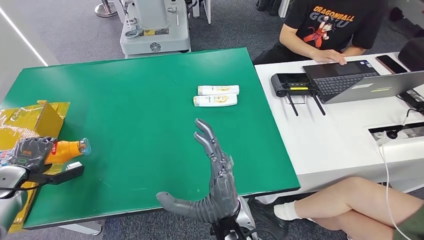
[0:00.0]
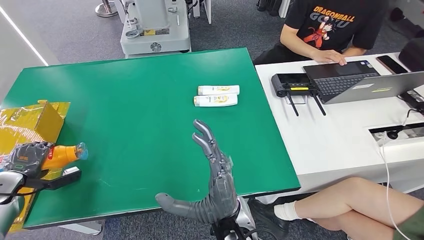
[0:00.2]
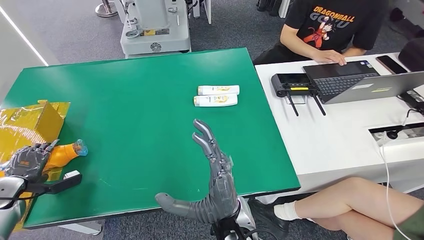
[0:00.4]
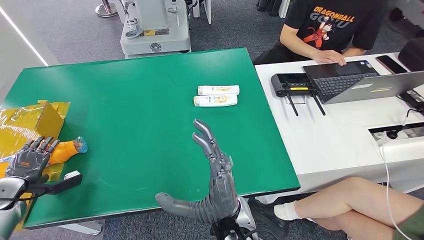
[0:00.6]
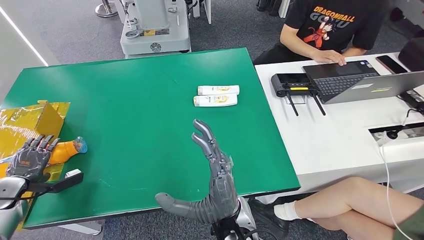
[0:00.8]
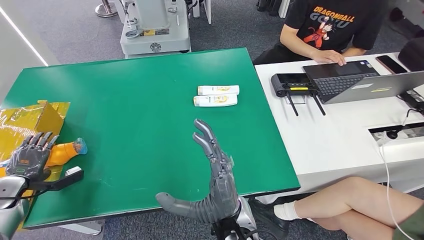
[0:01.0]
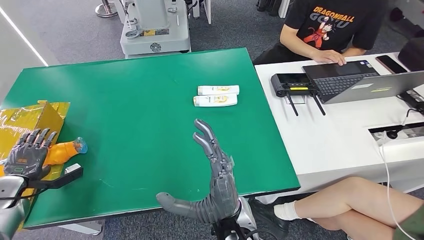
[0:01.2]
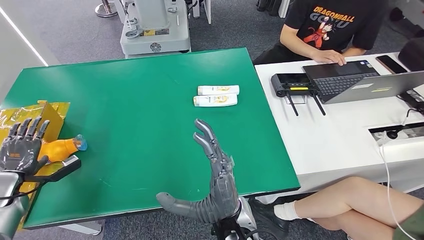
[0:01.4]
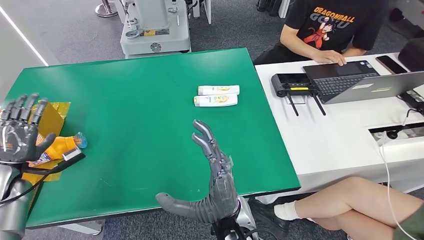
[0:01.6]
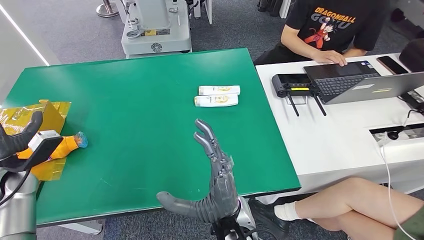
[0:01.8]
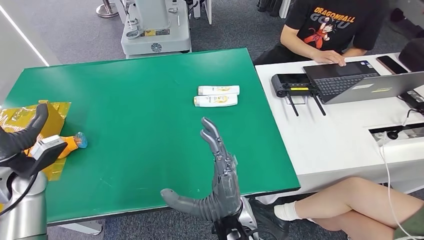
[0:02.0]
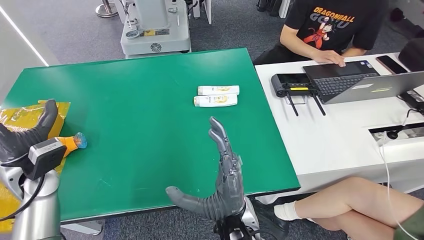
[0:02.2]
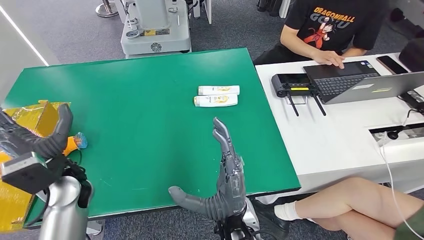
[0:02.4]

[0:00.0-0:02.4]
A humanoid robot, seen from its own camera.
Step, 0:00.0 to 0:02.4: Turn the bottle to the front side.
0:00.0 to 0:01.2: The hands stay close to where they were, moving slightly.
0:01.2 to 0:02.4: The left hand shifts approximately 30 cm to the right and upward.
